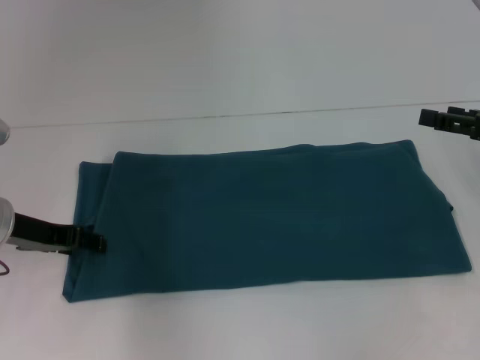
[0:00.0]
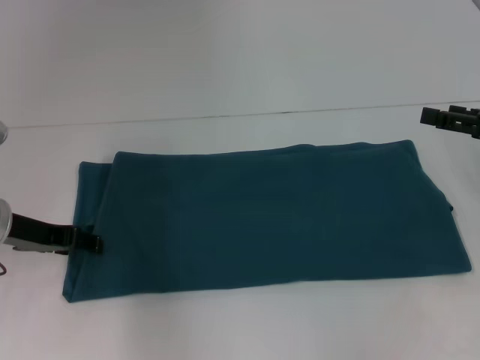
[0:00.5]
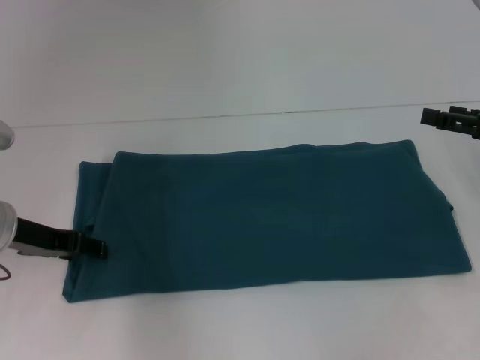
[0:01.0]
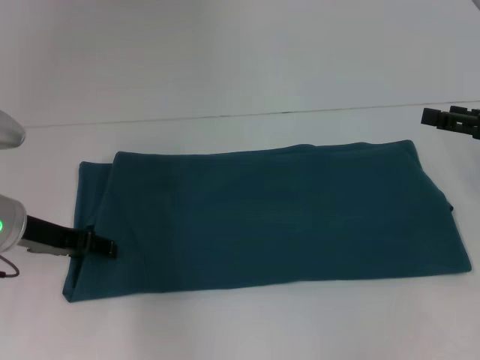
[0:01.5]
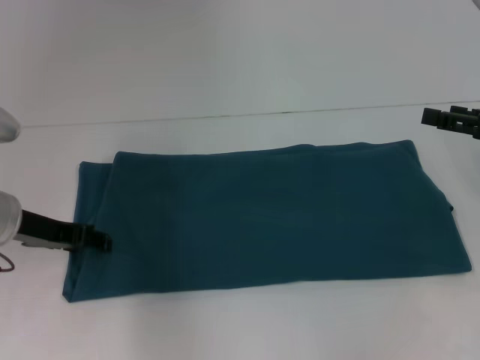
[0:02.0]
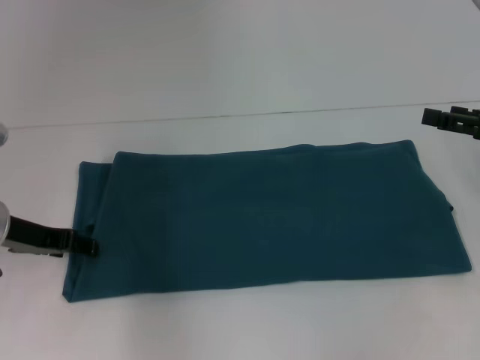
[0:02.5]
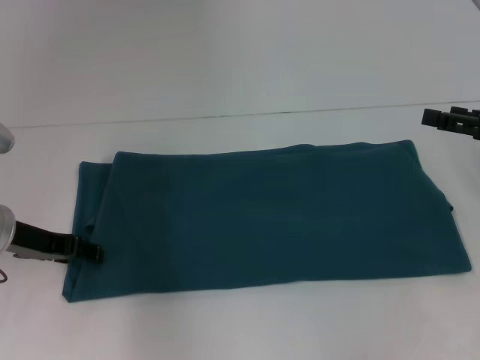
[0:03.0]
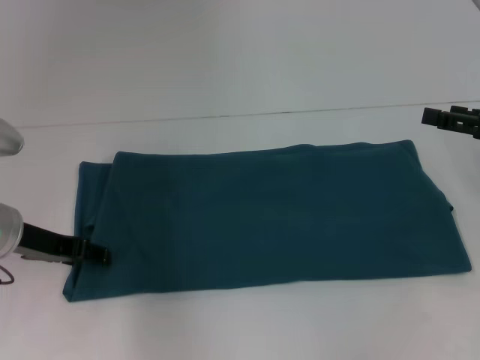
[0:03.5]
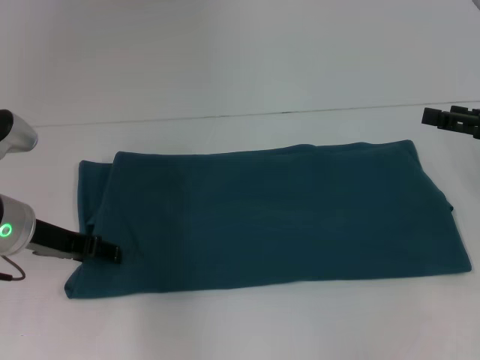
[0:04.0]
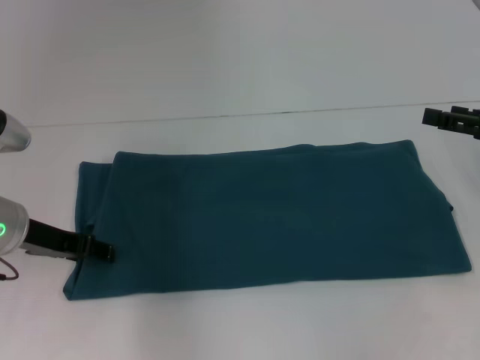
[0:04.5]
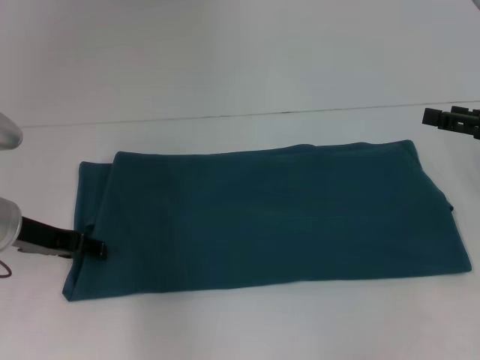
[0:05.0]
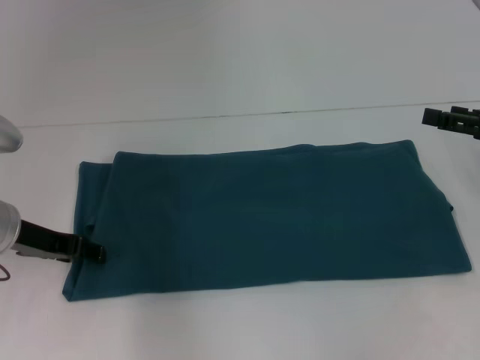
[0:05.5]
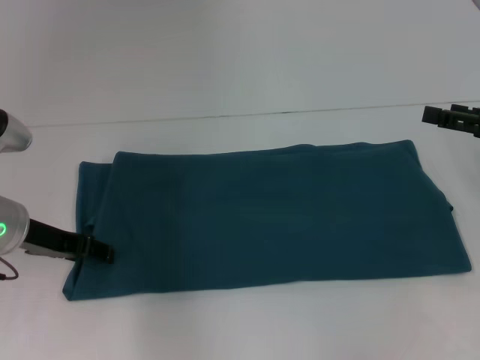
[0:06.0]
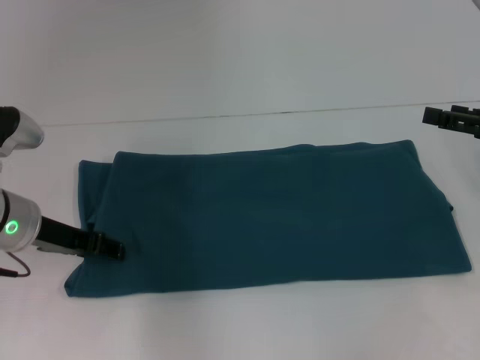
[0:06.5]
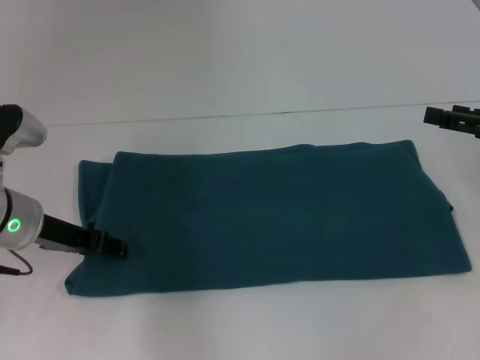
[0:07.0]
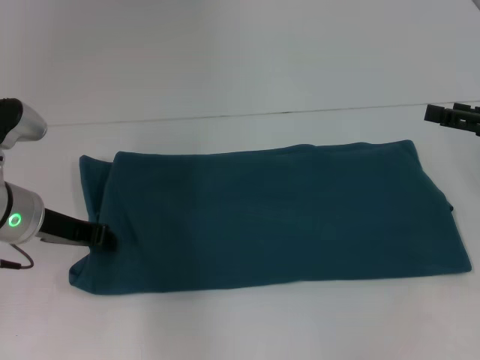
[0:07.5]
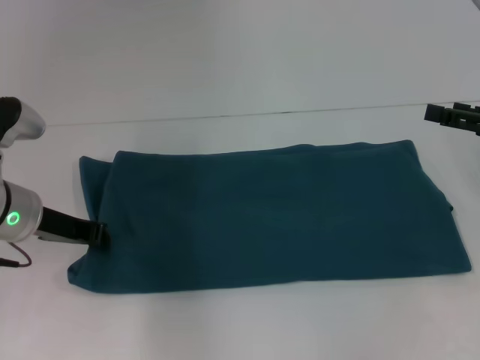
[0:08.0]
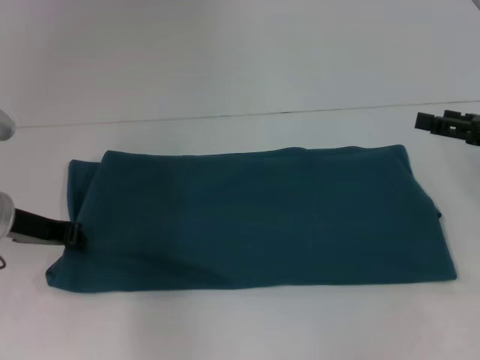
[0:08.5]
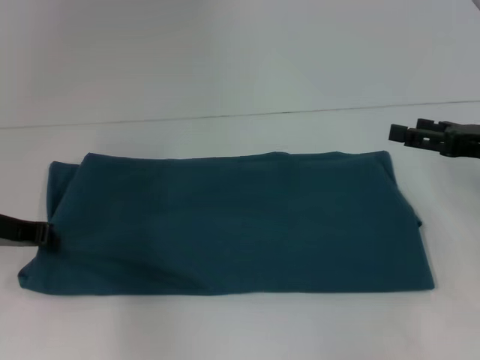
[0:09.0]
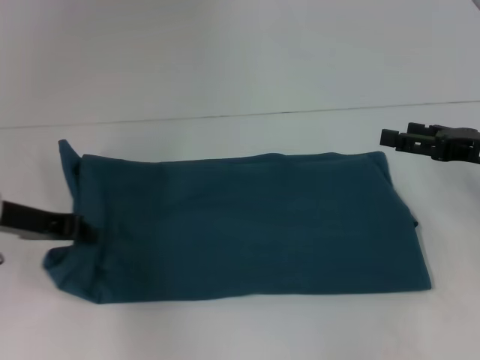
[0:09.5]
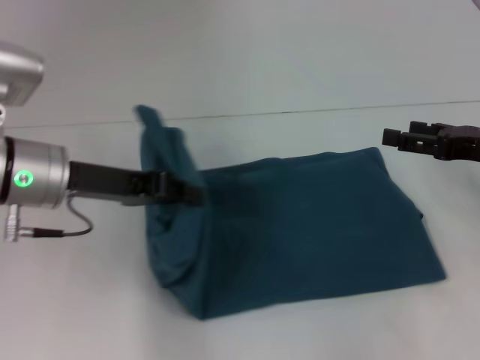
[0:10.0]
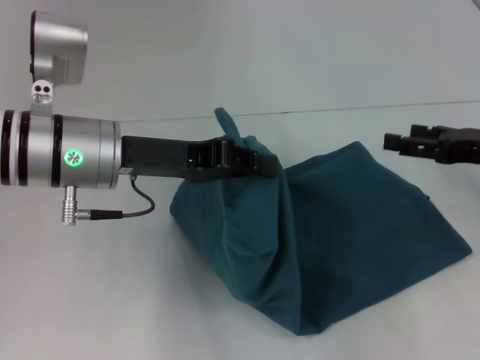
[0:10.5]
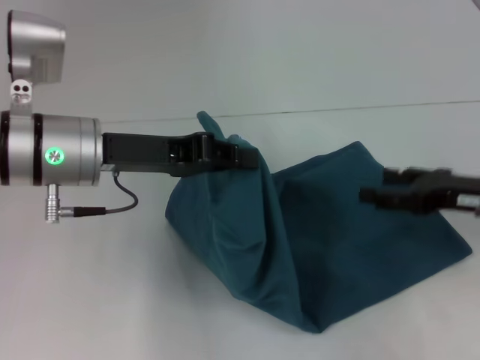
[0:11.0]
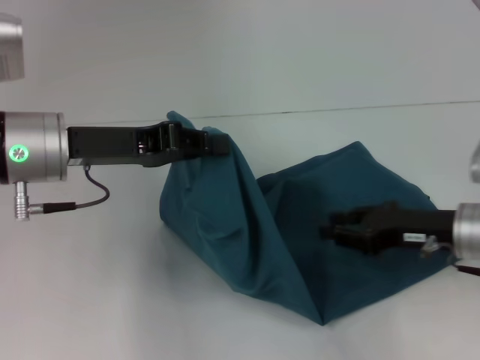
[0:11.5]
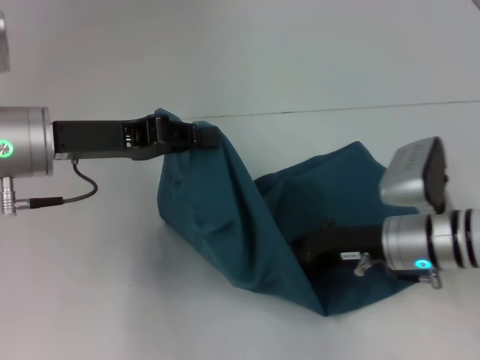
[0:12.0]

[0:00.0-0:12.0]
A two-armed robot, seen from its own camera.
0:00.0 to 0:02.0: Neither gripper changes place.
0:02.0 to 0:04.0: Both grippers stay about where they are.
0:04.0 to 0:06.0: The grippers make only small movements.
0:06.0 to 0:08.0: The left gripper closes up.
0:08.0 to 0:10.0: The left gripper shifts about 5 cm upward.
0:10.0 to 0:12.0: The right gripper shifts about 15 cm to the left and downward, and closes up.

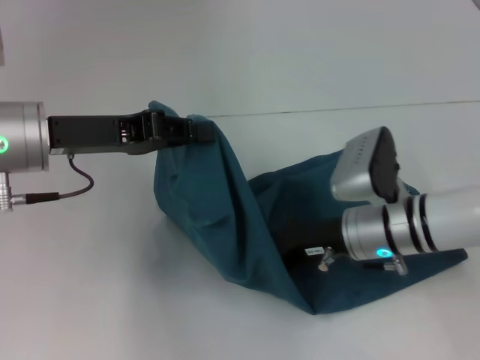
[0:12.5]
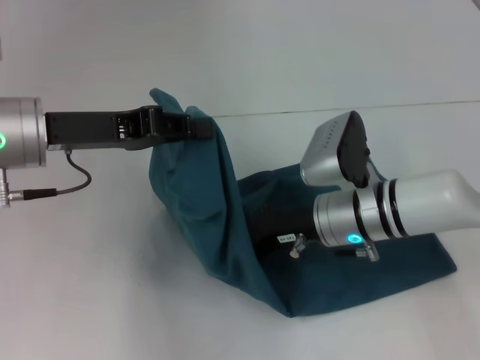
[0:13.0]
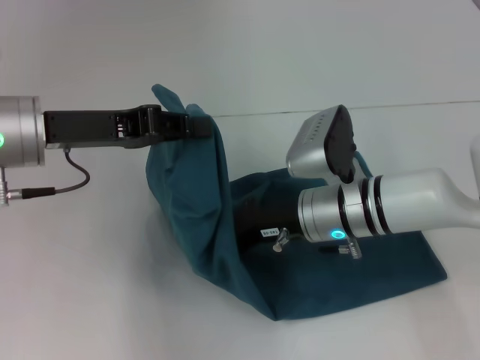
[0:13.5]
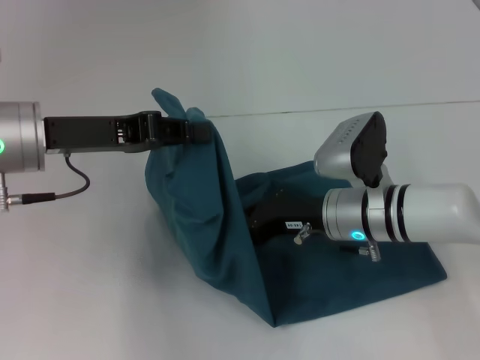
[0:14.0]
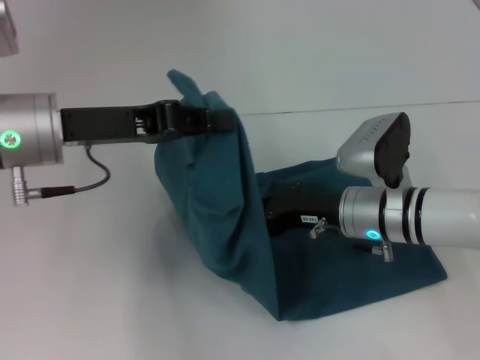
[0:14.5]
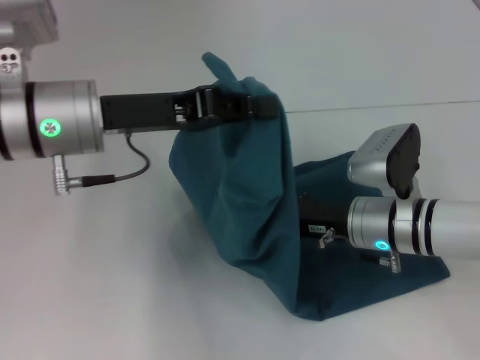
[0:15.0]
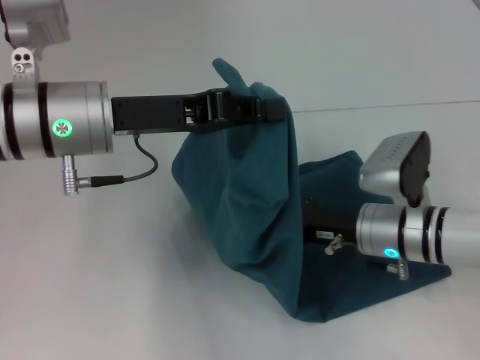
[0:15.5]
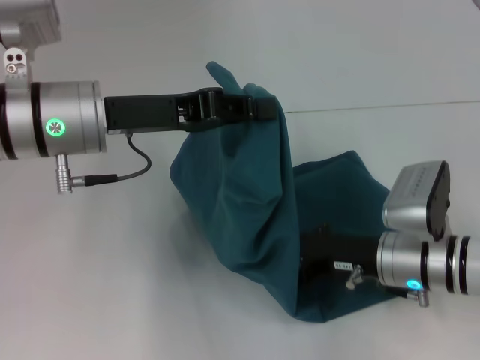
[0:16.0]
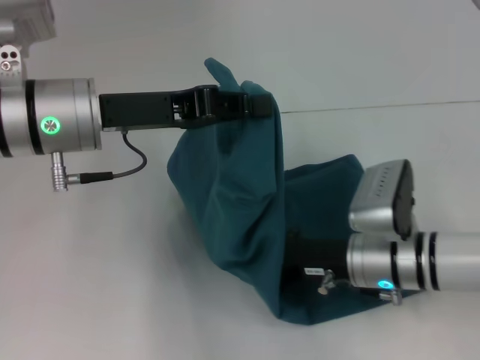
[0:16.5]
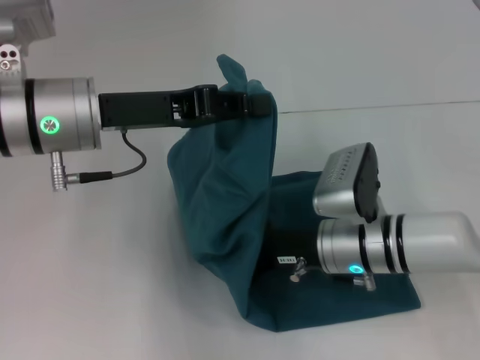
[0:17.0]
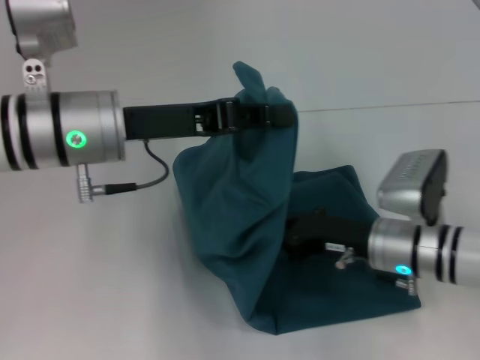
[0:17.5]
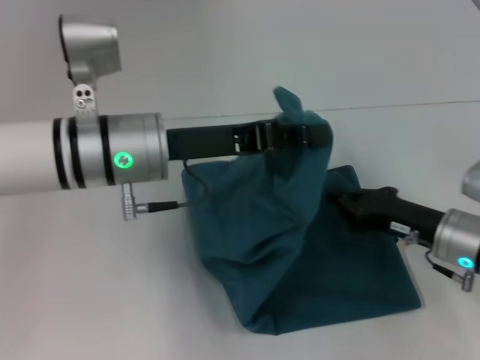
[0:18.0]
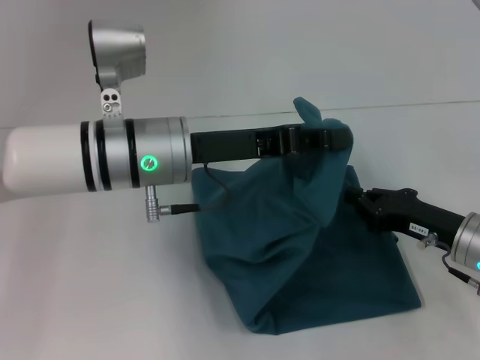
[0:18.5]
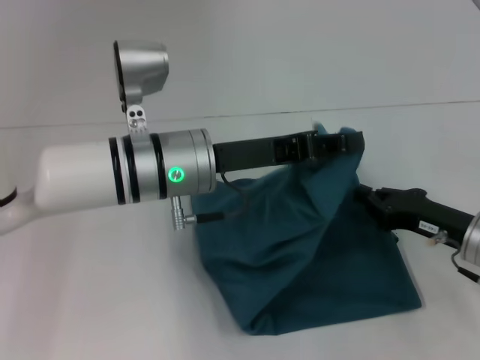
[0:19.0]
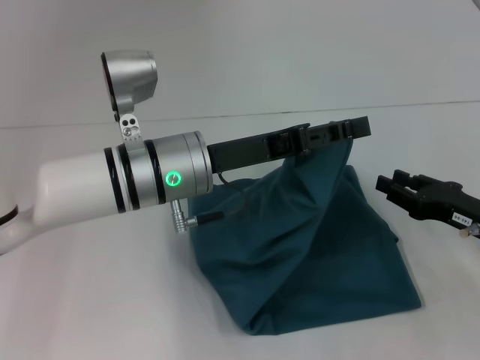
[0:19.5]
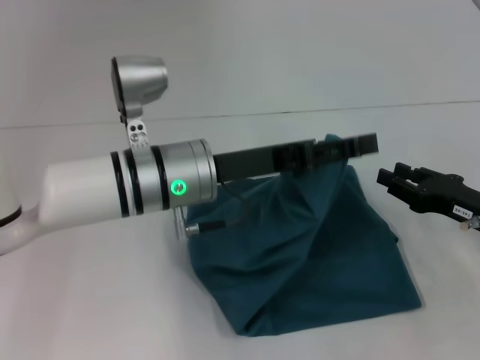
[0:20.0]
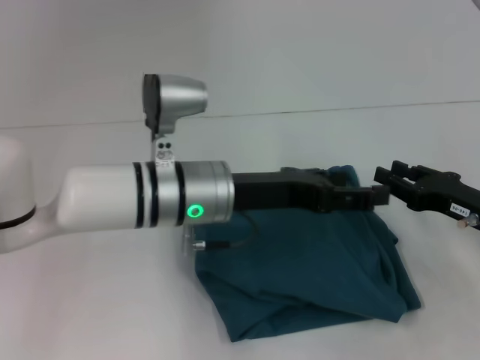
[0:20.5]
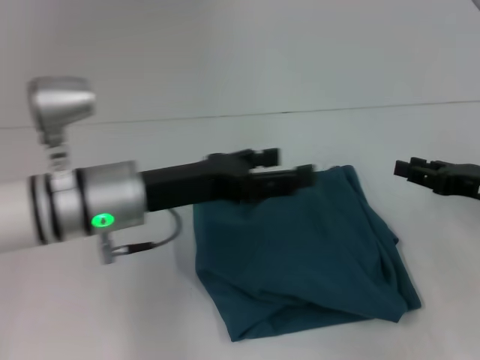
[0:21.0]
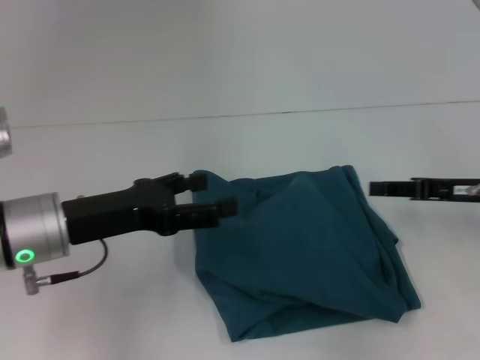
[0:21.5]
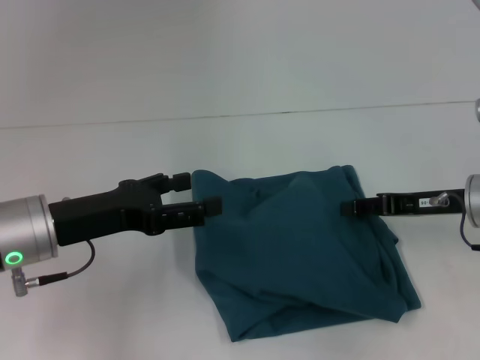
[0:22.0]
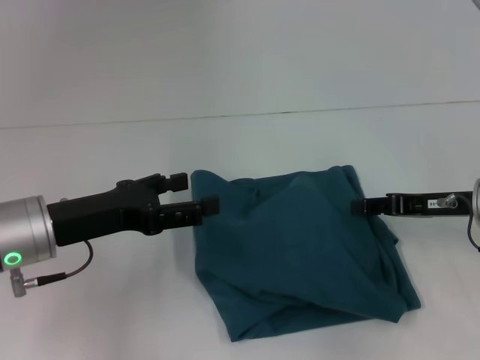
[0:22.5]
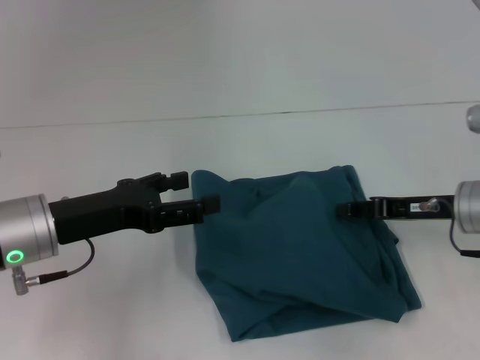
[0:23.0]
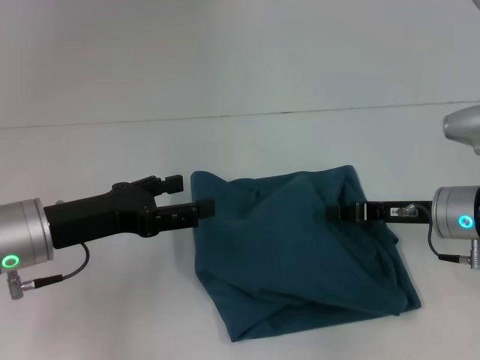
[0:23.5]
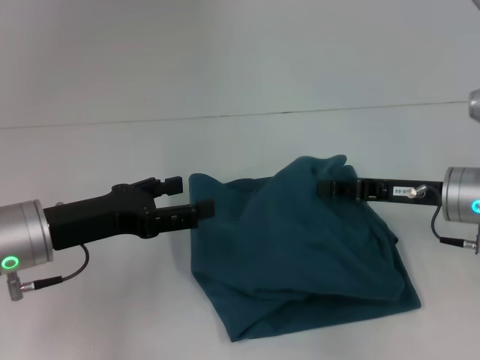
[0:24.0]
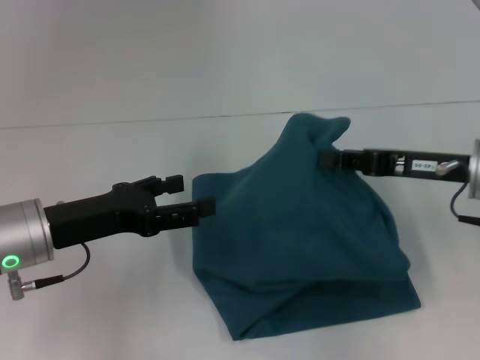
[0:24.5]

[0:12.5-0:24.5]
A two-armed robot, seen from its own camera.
Step, 0:13.0 to 0:20.5: Fold the clothes to the left.
0:12.5 to 0:14.5: The grippers make only small movements.
0:16.5 to 0:18.5: The left gripper moves to the right, approximately 5 cm, while the right gripper travels to the right by approximately 10 cm.
0:18.5 to 0:20.5: The left gripper moves roughly 5 cm, and opens up; the right gripper opens its fingers.
0:20.5 to 0:22.5: The left gripper is displaced to the left by roughly 15 cm. Meanwhile the right gripper shifts by some 5 cm.
0:22.5 to 0:24.5: The right gripper ends up about 5 cm from where it was, and closes up.

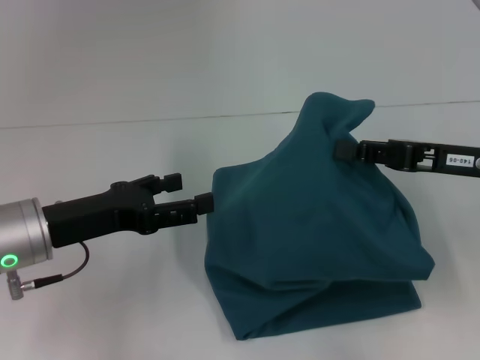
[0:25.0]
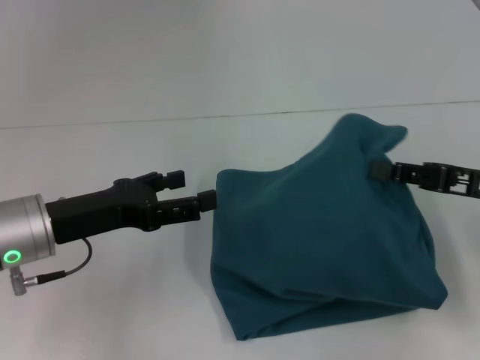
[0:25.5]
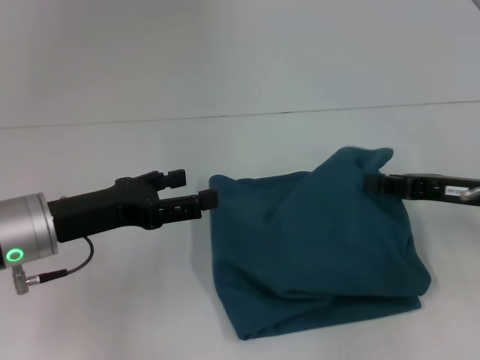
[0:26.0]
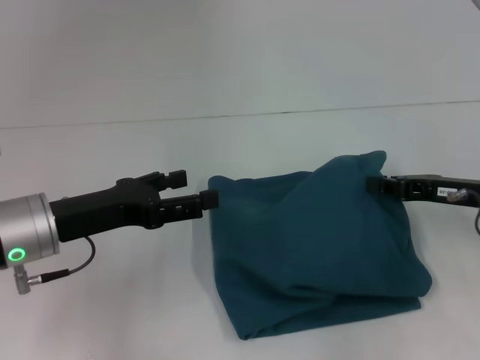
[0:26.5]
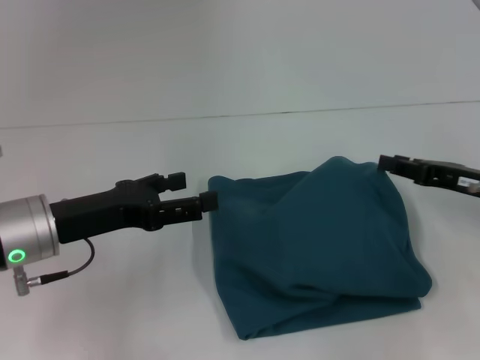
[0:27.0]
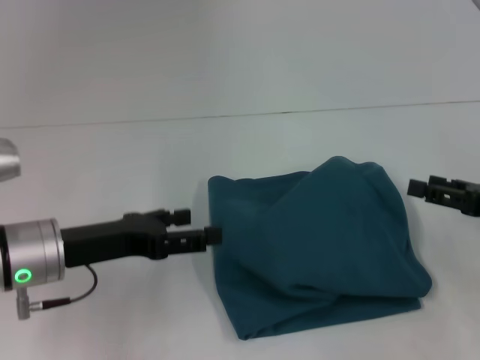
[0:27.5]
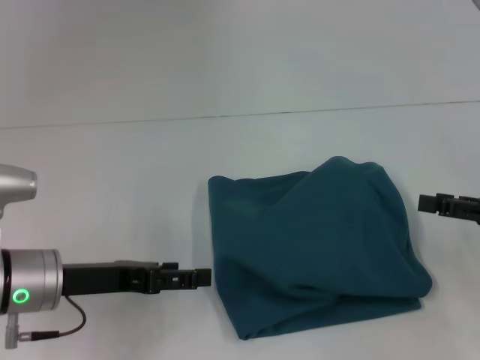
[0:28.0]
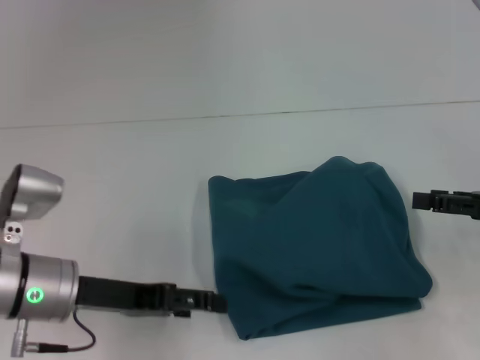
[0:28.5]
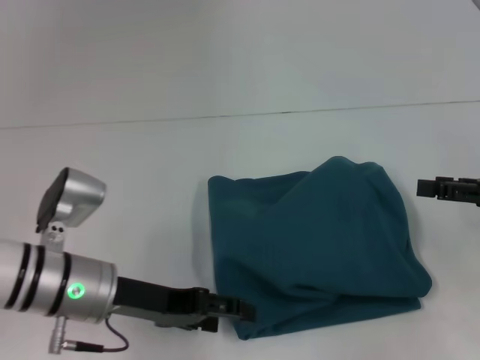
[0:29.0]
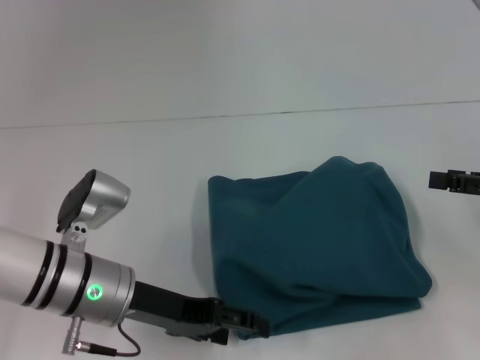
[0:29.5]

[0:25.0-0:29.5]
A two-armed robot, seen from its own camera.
0:25.0 to 0:27.0: The right gripper is displaced downward by some 5 cm.
0:27.0 to 0:29.5: Both grippers travel together to the right, approximately 5 cm. The right gripper opens its fingers.
